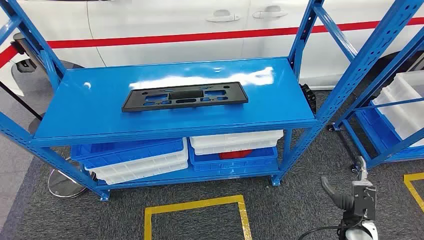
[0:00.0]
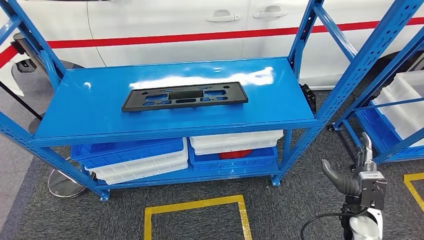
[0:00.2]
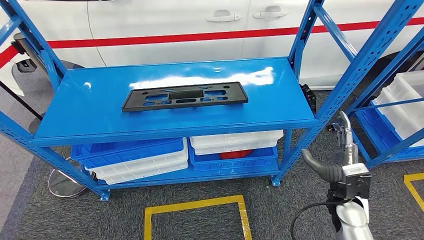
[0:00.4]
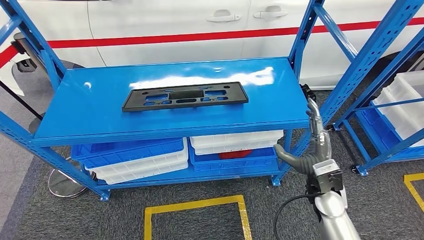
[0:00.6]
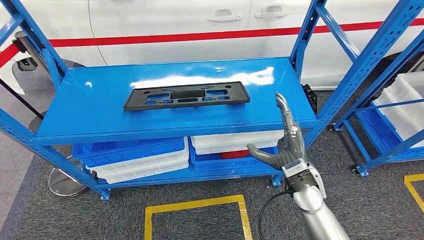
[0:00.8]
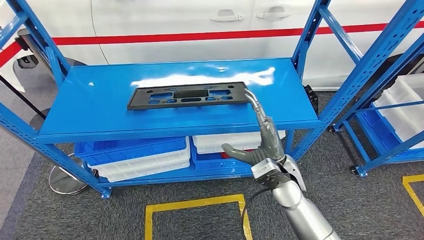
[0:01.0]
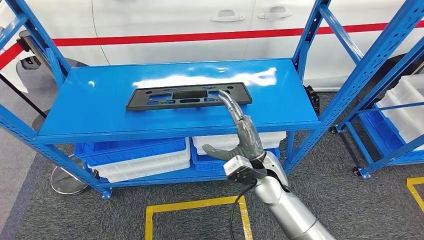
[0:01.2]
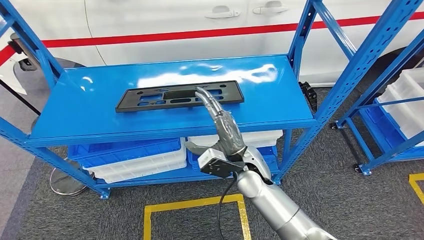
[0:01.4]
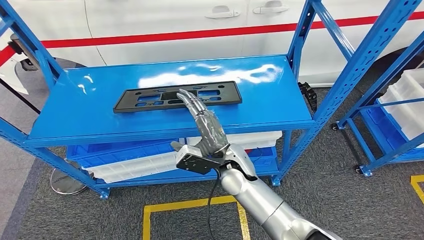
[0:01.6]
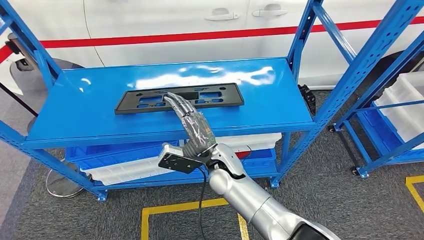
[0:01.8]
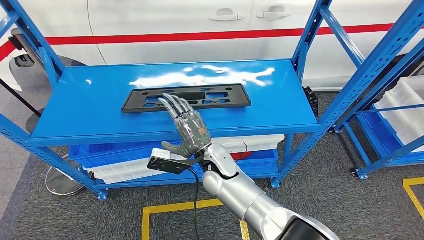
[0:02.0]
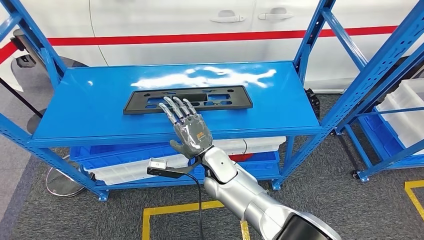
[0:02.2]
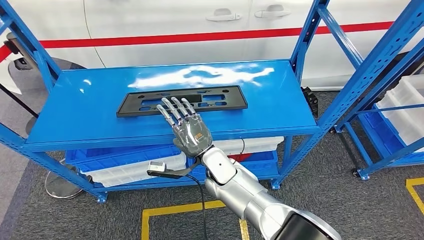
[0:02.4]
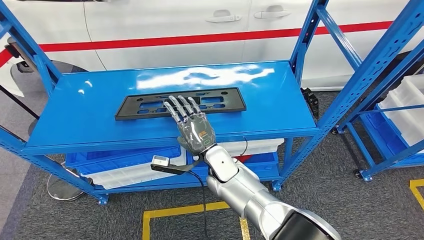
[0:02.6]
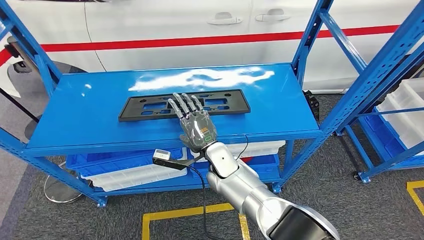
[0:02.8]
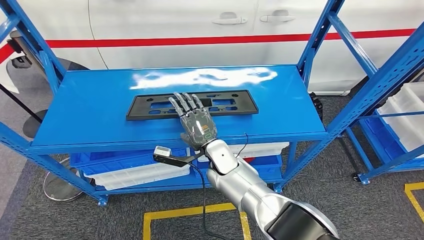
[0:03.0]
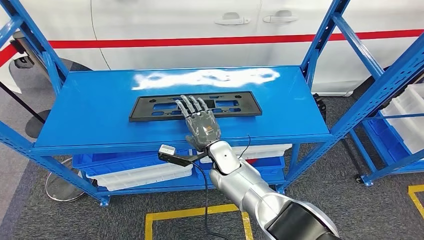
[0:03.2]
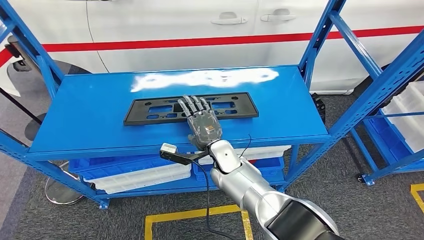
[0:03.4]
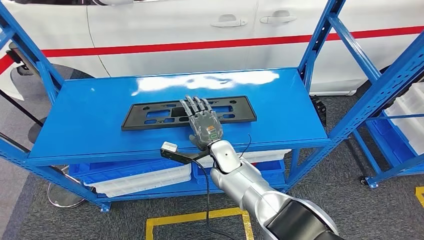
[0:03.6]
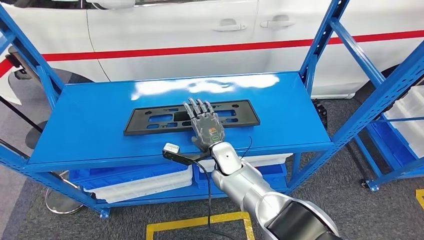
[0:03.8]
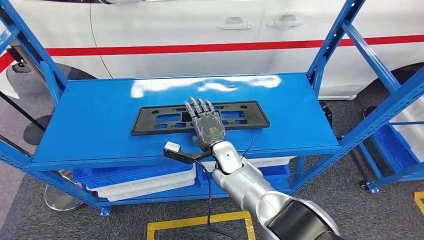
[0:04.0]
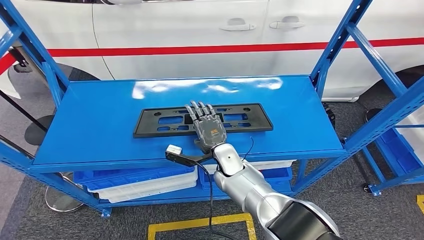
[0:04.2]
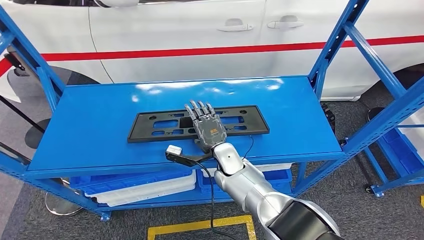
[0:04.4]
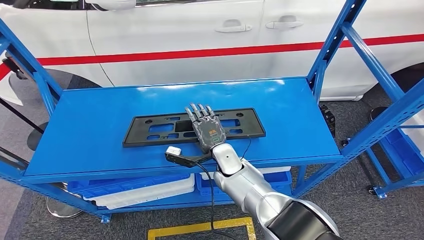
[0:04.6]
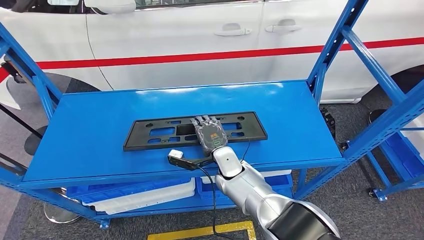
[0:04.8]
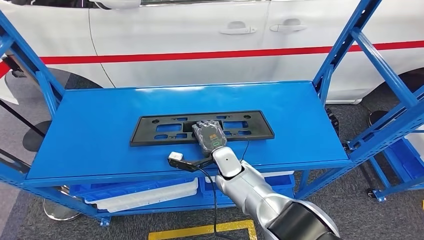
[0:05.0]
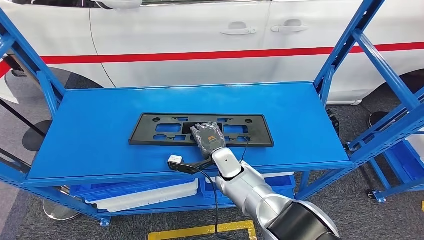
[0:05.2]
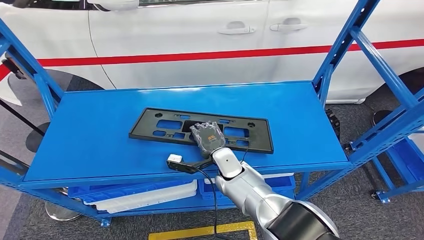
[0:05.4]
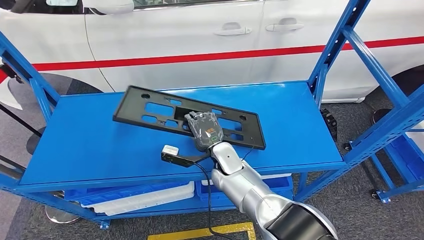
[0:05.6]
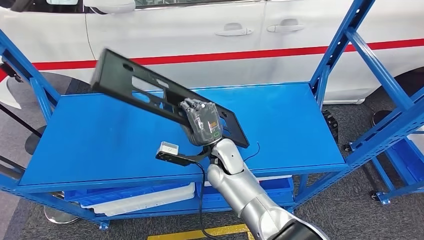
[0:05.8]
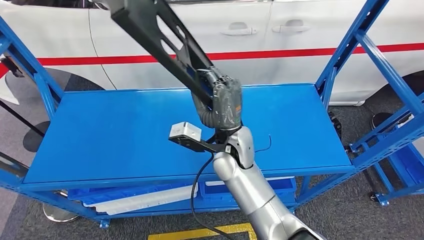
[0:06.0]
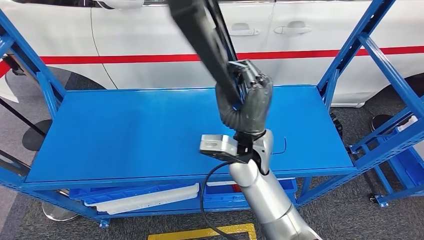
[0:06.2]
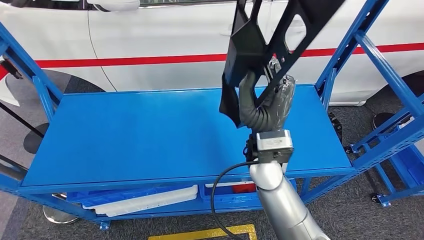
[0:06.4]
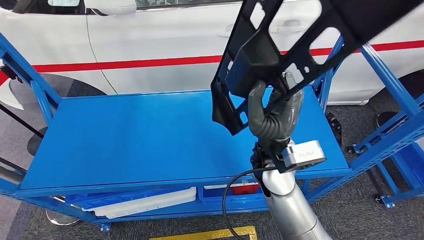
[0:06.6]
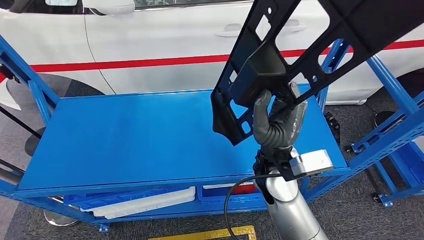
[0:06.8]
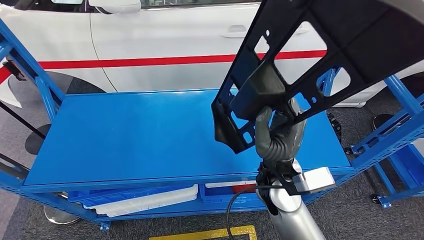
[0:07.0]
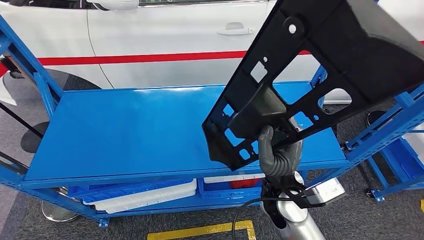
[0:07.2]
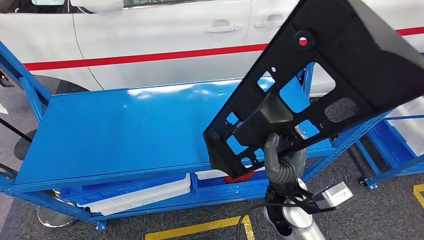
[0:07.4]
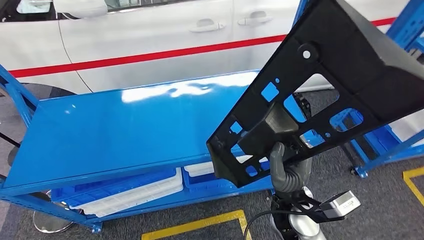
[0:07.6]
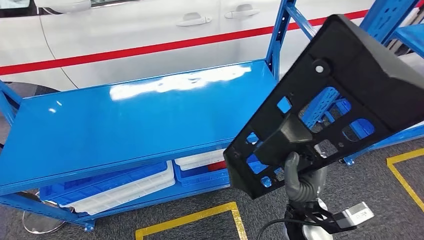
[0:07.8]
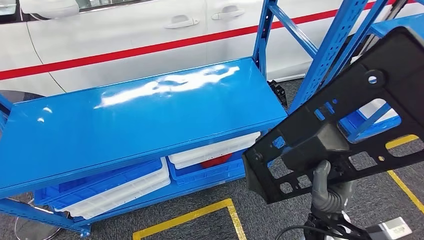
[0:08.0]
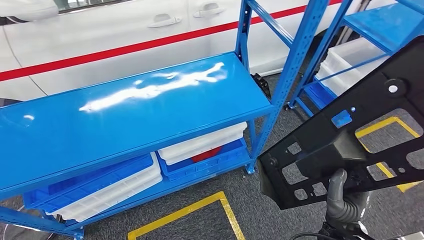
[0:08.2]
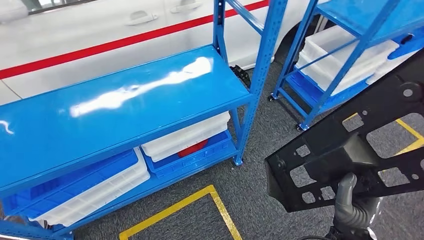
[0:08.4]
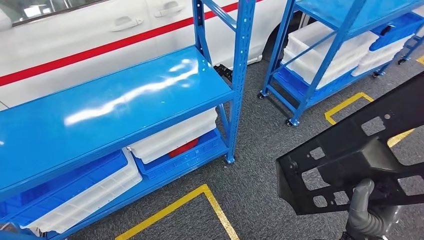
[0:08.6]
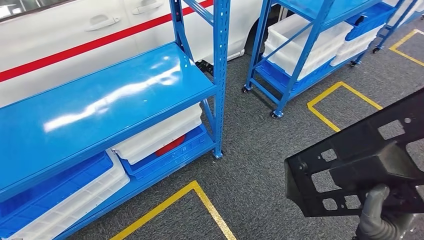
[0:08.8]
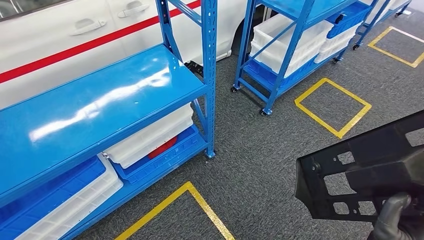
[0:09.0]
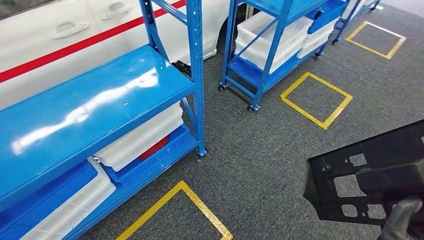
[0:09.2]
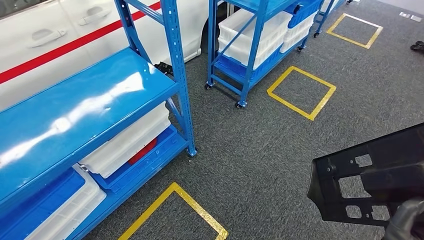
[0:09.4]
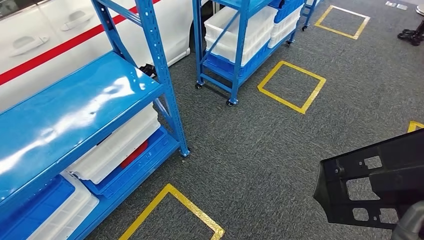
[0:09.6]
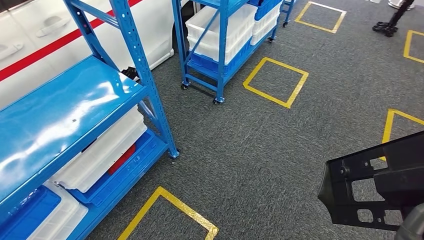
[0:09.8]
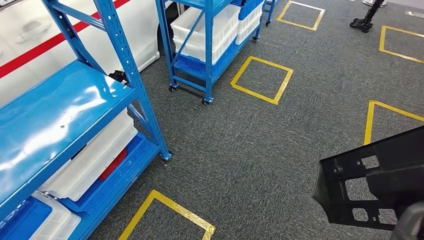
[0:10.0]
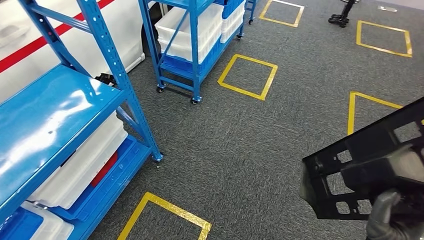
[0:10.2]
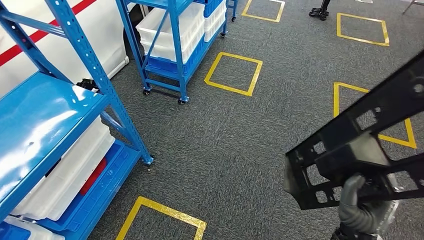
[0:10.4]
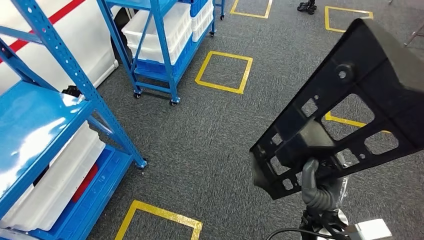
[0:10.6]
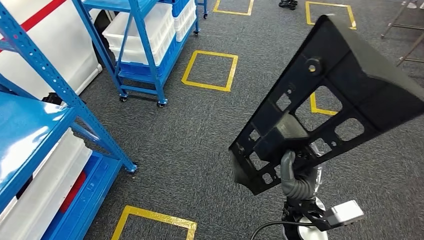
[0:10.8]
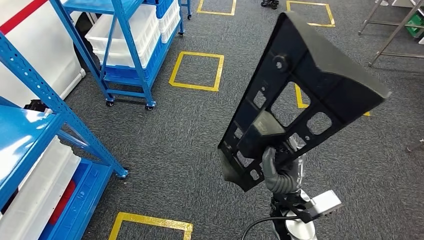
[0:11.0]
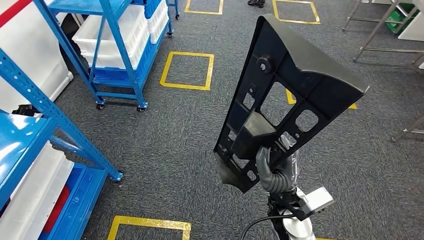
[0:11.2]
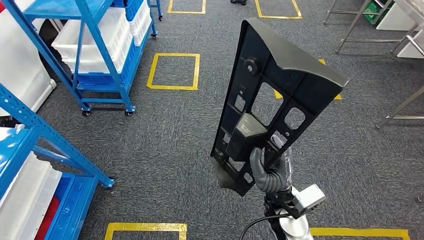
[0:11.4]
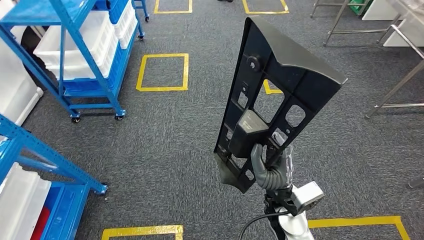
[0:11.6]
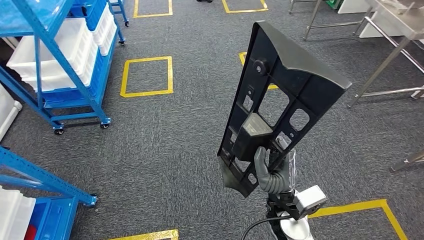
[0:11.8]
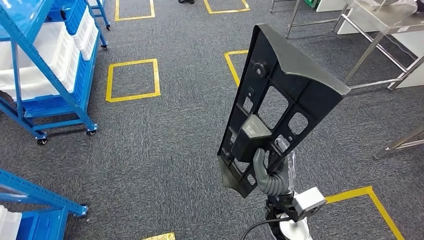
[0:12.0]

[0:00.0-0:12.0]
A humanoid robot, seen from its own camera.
Step, 0:00.0 to 0:05.6: Pick up the large material from the shelf.

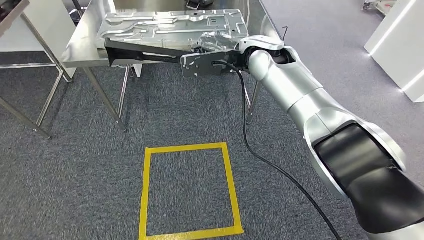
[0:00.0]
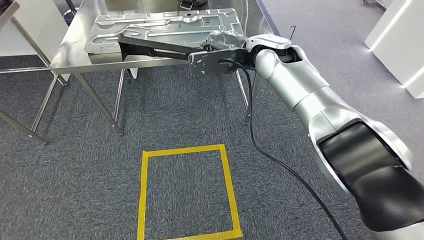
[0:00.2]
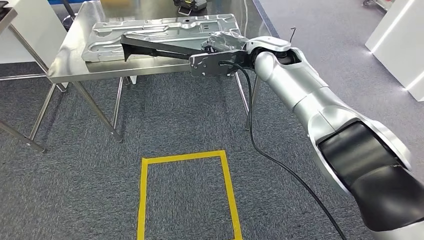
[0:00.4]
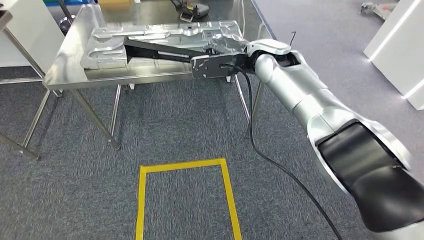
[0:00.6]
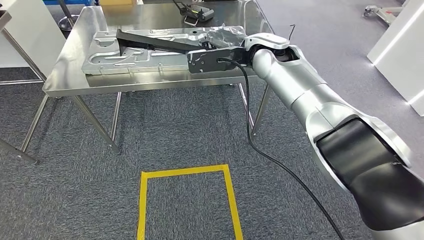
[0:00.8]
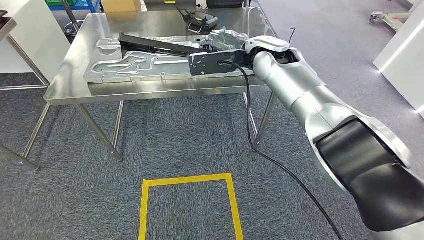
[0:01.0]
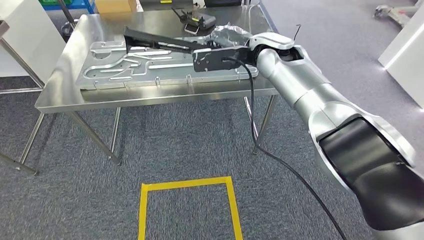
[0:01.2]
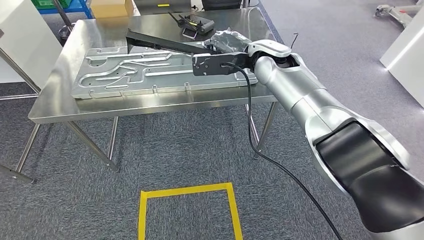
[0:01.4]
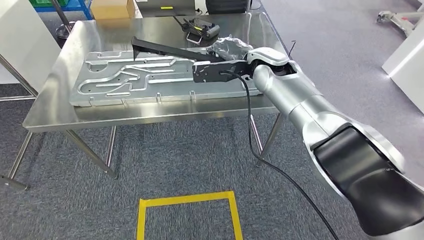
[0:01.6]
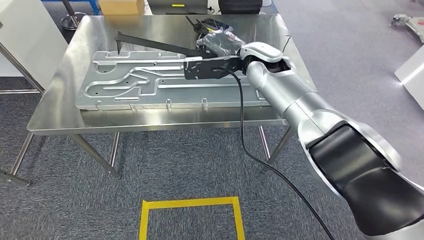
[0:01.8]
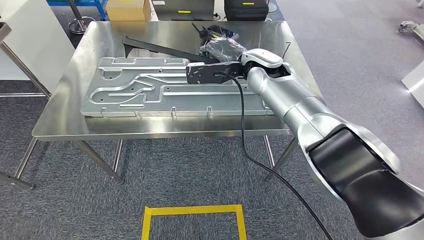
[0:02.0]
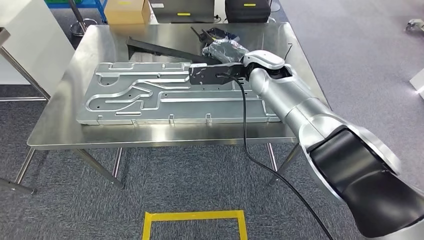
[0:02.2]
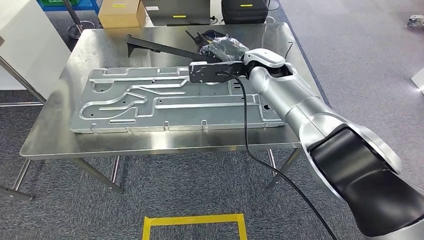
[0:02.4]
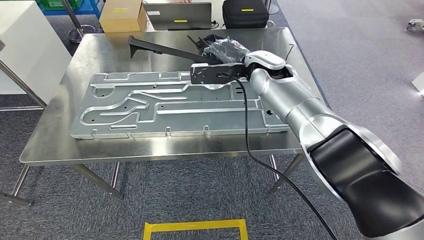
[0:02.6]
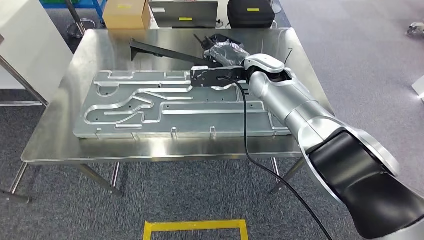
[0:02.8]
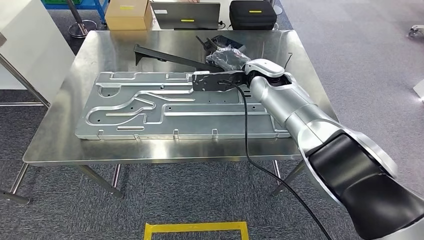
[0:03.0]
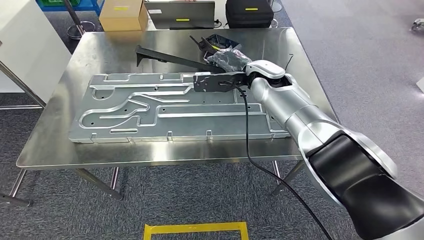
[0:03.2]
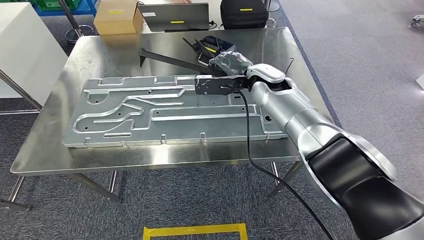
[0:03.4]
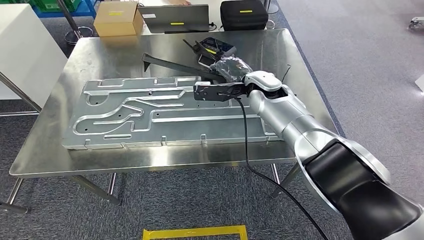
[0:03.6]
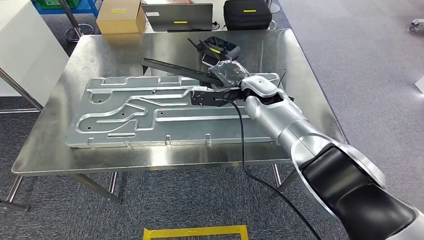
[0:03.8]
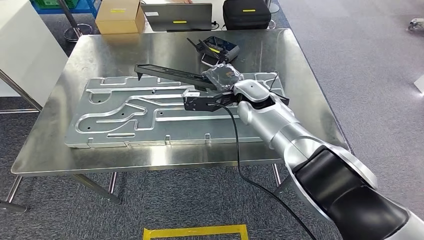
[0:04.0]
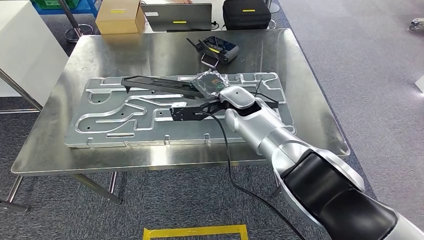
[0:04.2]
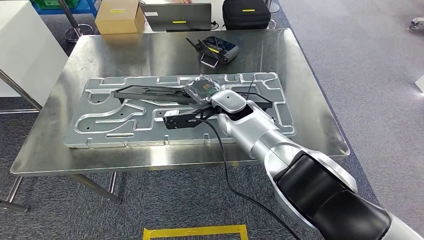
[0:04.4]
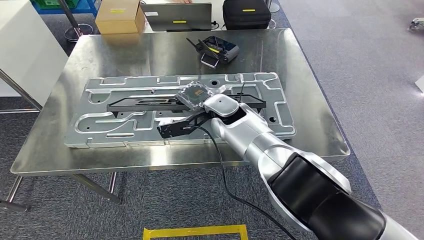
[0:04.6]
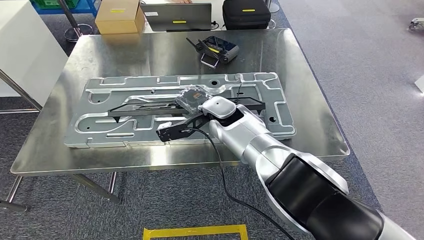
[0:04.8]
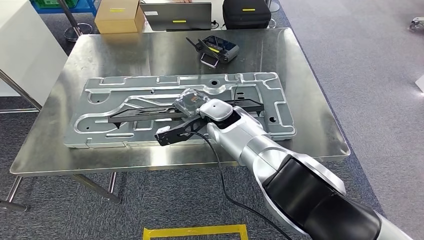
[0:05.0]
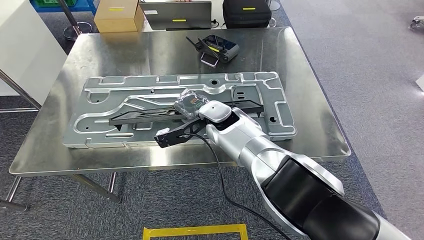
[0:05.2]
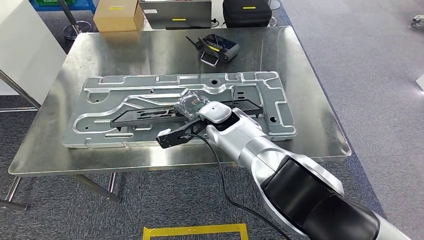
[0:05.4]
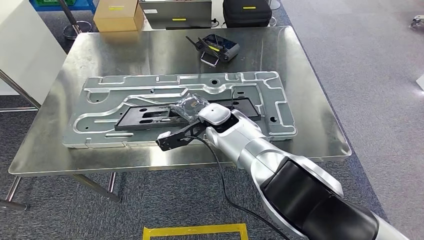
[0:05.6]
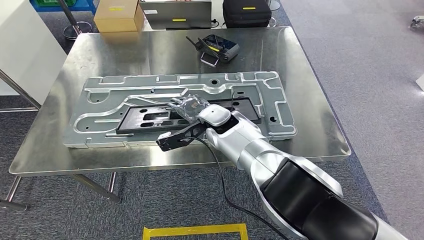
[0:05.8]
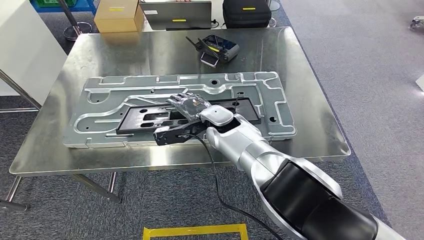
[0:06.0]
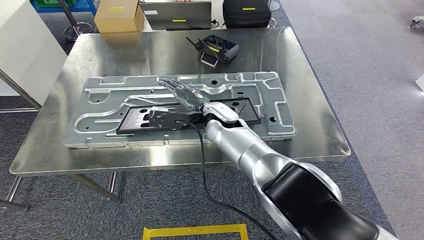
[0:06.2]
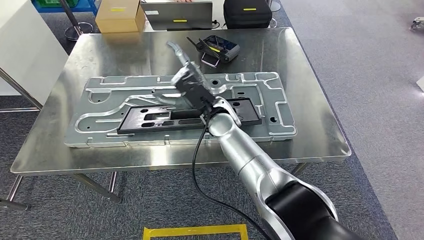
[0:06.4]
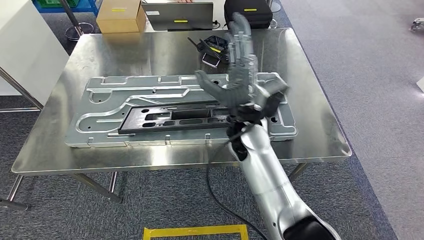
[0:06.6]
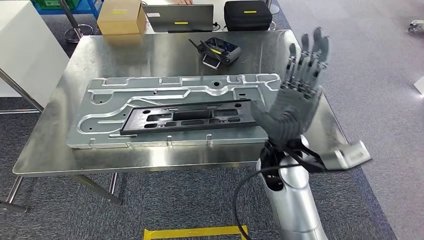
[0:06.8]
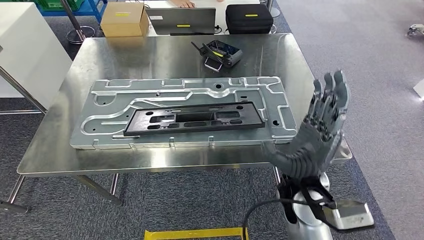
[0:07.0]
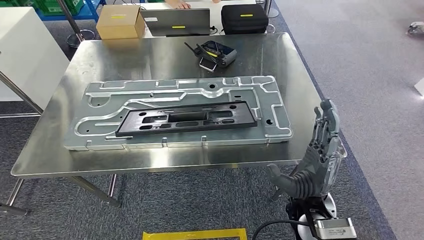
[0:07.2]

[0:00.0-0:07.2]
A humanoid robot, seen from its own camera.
Step, 0:00.0 to 0:02.0: Move the large material to the front of the workbench.
0:04.4 to 0:05.8: The hands move only a little.
